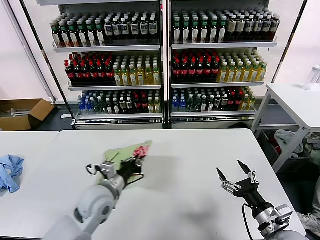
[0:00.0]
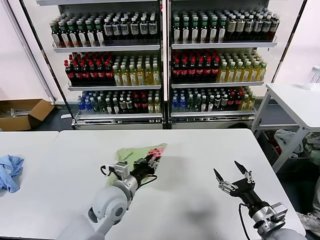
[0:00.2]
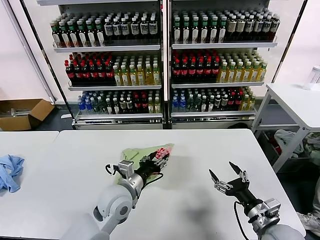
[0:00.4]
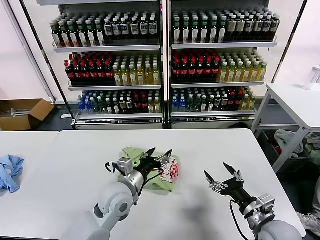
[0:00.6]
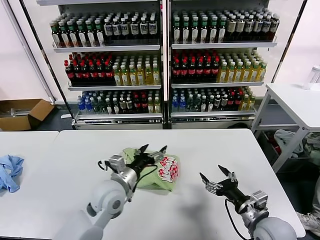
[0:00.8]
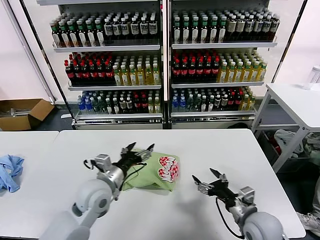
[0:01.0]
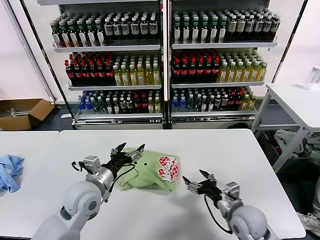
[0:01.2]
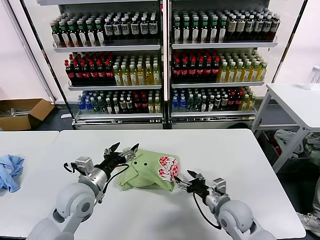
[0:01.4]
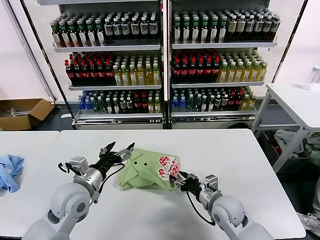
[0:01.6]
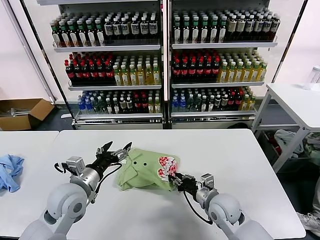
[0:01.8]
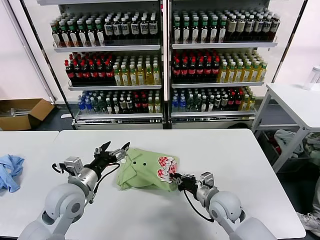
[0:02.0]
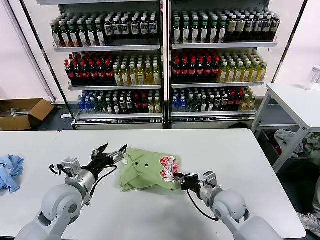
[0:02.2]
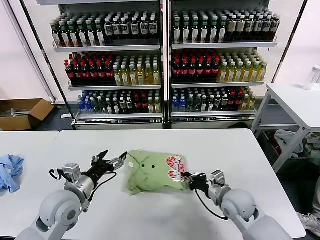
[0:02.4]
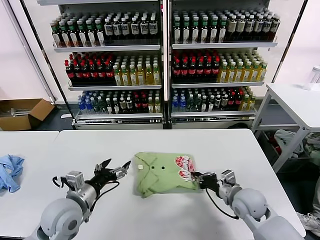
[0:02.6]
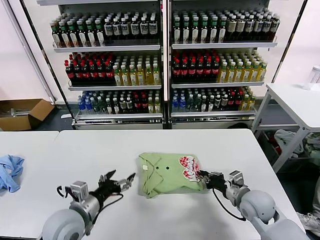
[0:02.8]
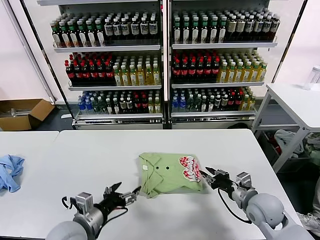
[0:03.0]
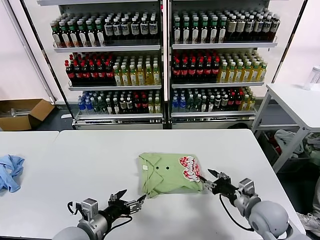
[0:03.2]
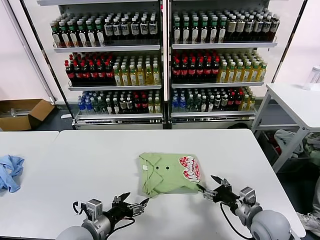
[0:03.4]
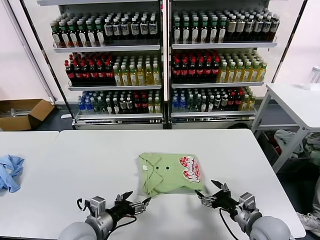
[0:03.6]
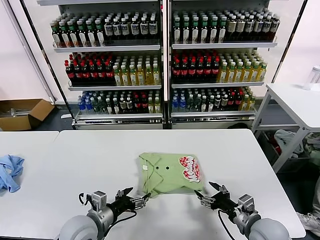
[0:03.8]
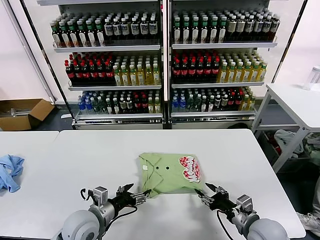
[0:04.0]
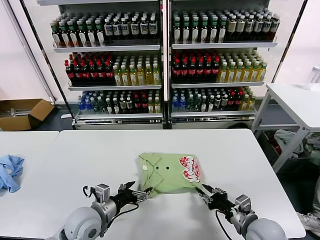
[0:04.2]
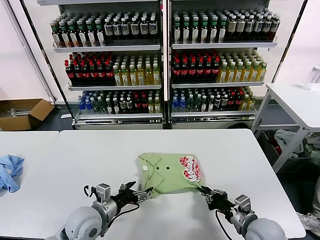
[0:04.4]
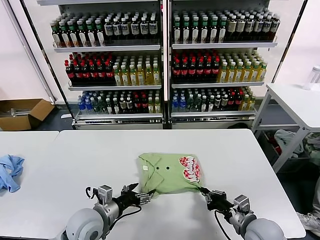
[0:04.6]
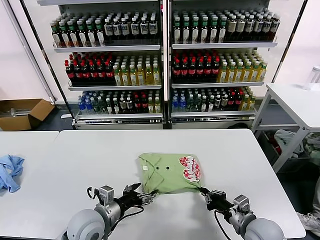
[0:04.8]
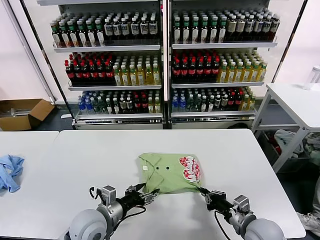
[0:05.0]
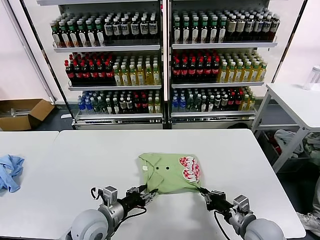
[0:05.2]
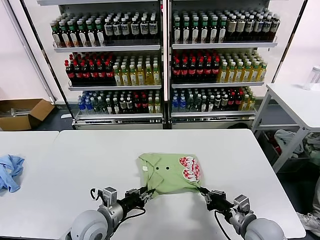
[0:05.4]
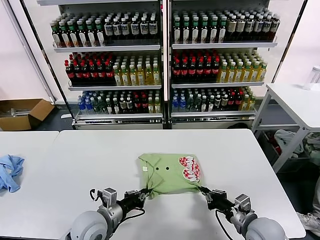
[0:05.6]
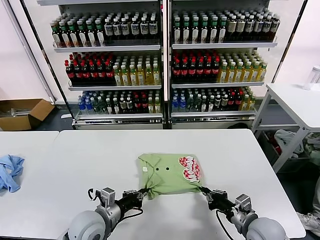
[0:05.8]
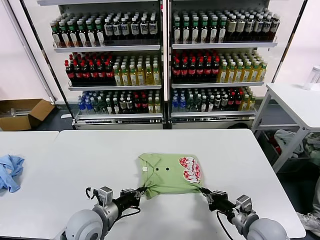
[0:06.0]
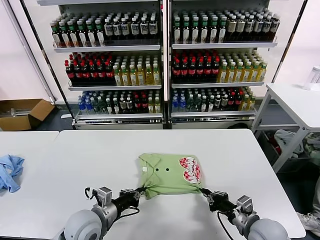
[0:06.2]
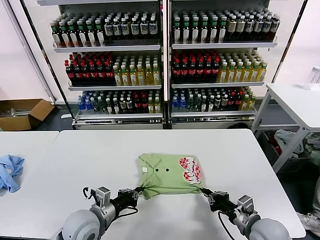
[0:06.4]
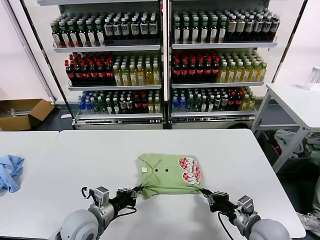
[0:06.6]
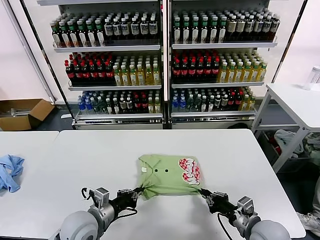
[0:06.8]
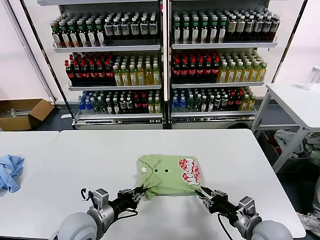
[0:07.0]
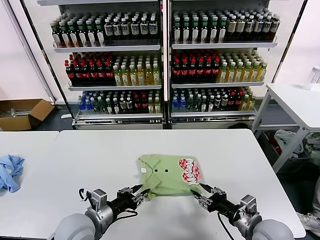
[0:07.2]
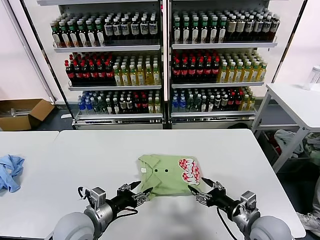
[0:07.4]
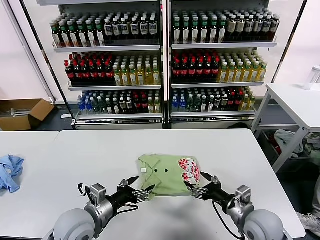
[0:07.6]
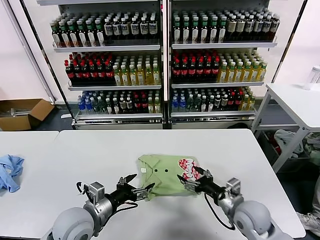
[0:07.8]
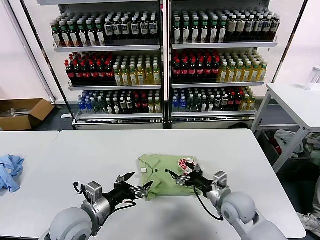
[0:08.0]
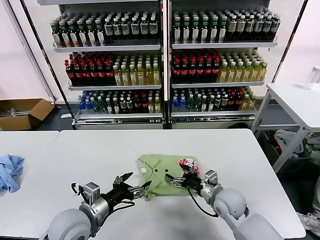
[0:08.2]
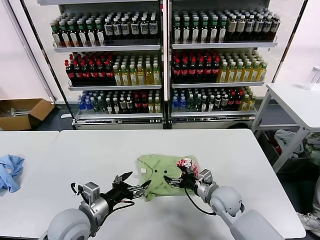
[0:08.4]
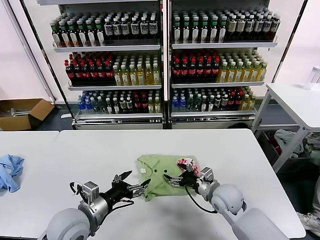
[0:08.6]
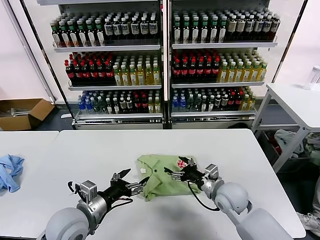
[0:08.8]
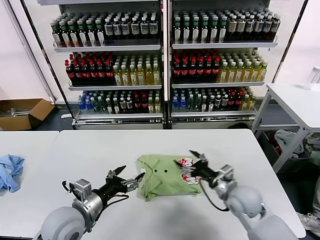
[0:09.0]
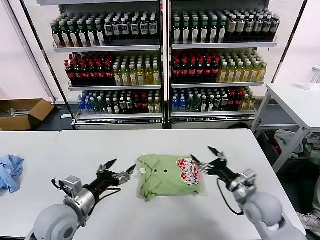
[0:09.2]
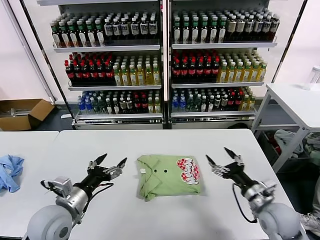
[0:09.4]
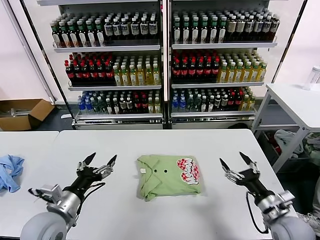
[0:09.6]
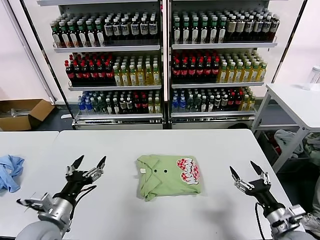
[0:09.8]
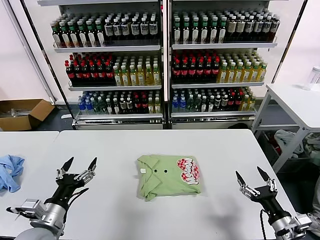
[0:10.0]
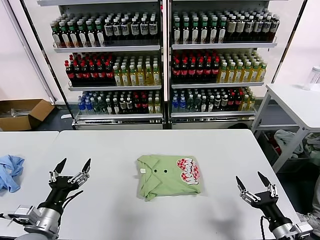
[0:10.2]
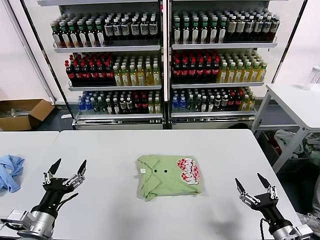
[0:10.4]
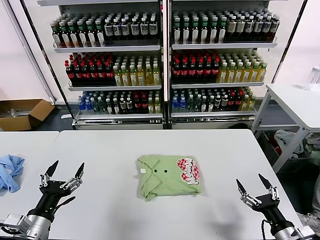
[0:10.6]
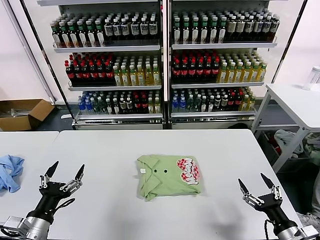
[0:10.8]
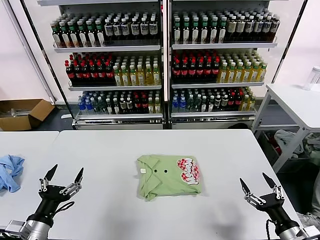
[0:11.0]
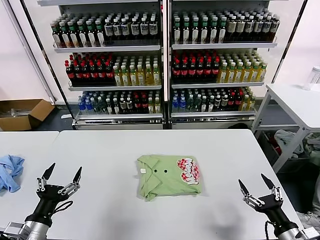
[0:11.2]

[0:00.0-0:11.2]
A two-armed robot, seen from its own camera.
Task of the whole recording: fold and organize the clothes.
Step, 0:00.6 to 0:08.6: Drag the clothes to the center of the table.
0:00.0 to 0:01.6: The right gripper is displaced to the left and forward by about 15 cm. Meanwhile the left gripper moves to the left, roughly 5 cm, and opens.
0:01.6 to 0:03.2: The left gripper is displaced backward by about 10 cm; the right gripper is displaced to the right by approximately 10 cm, and closes and opens again.
0:03.2 to 0:04.8: The right gripper shifts by roughly 5 cm, and closes up. Meanwhile the left gripper goes roughly 5 cm forward.
0:04.8 to 0:06.4: The left gripper closes.
0:06.4 to 0:08.0: The left gripper moves upward, approximately 5 cm, and opens its fingers. Meanwhile the right gripper travels forward and to the left by approximately 10 cm, and opens its fingers.
0:08.0 to 0:09.6: The left gripper shifts approximately 5 cm to the left; the right gripper shifts some 15 cm to the right and backward.
0:09.6 to 0:11.2: The left gripper goes roughly 10 cm backward and to the left. Meanwhile the right gripper travels backward by about 10 cm.

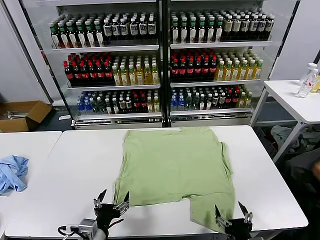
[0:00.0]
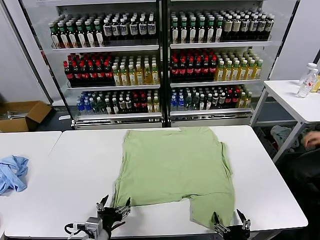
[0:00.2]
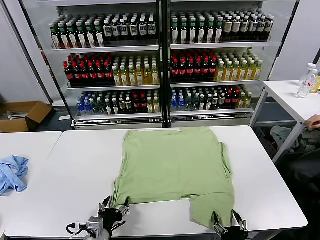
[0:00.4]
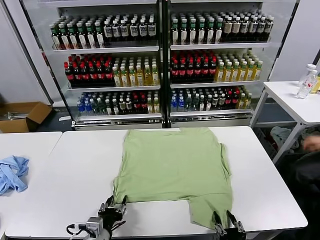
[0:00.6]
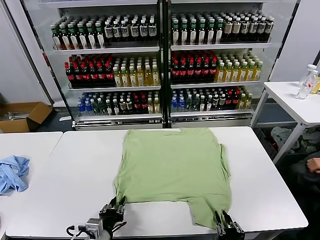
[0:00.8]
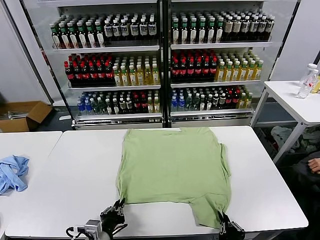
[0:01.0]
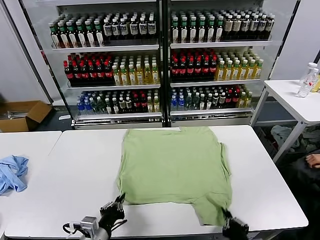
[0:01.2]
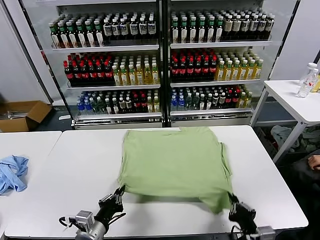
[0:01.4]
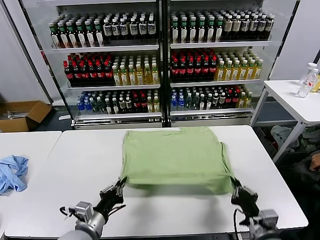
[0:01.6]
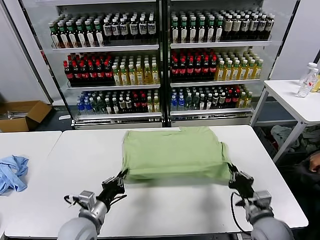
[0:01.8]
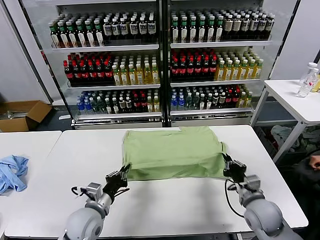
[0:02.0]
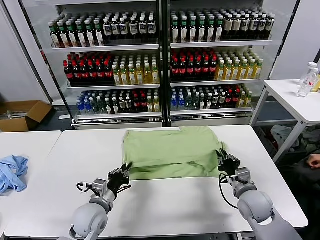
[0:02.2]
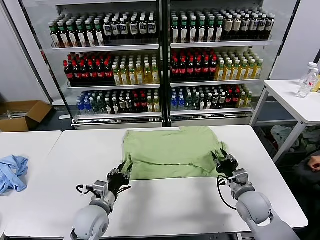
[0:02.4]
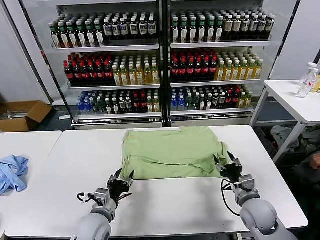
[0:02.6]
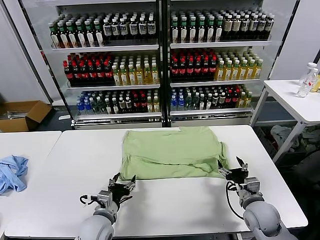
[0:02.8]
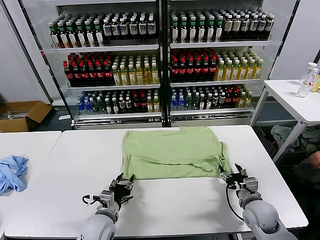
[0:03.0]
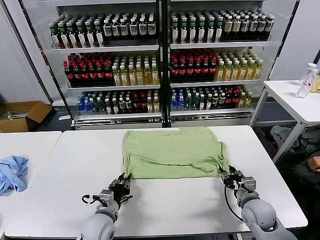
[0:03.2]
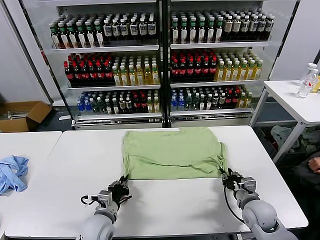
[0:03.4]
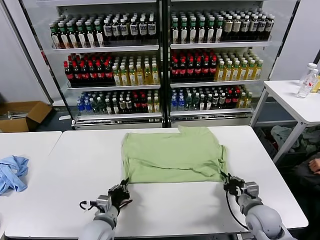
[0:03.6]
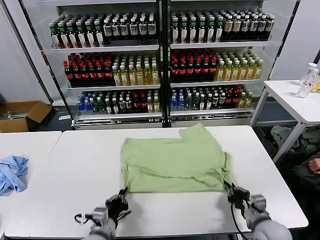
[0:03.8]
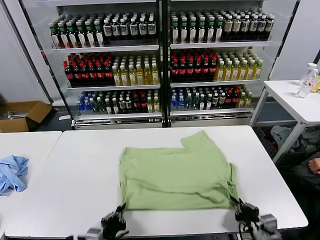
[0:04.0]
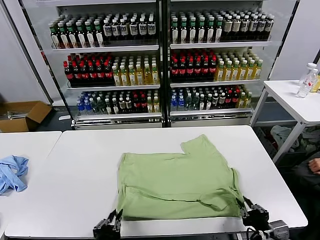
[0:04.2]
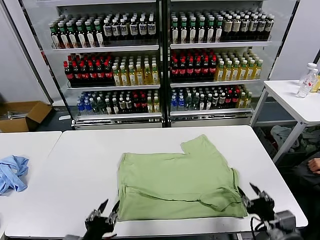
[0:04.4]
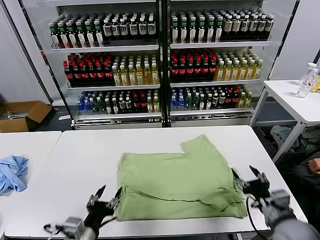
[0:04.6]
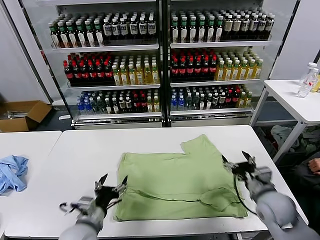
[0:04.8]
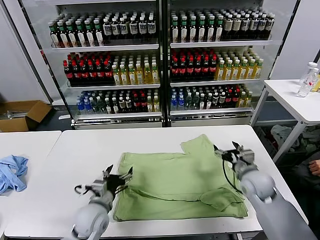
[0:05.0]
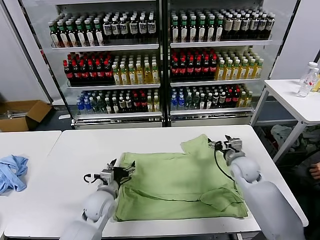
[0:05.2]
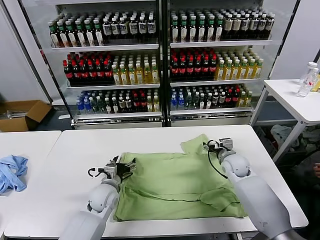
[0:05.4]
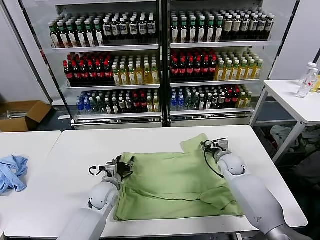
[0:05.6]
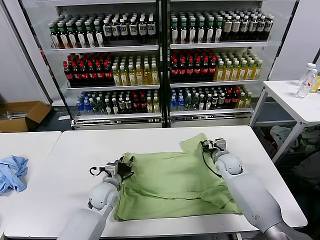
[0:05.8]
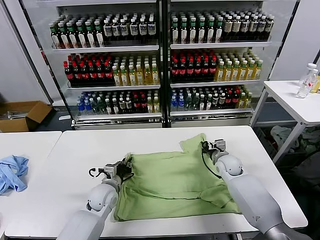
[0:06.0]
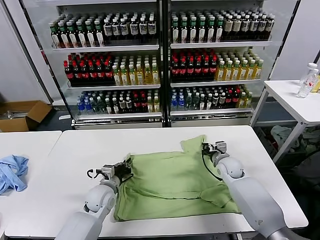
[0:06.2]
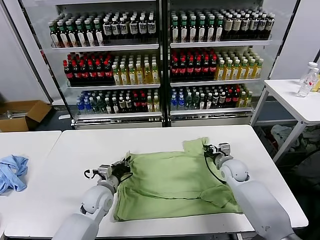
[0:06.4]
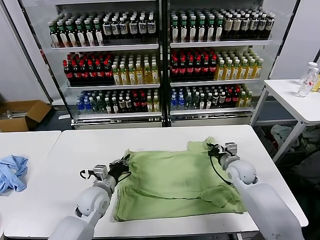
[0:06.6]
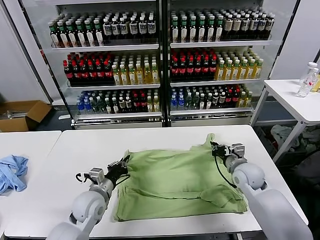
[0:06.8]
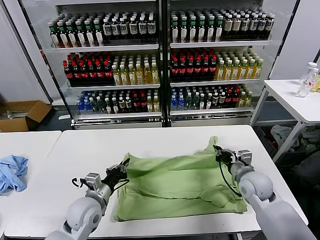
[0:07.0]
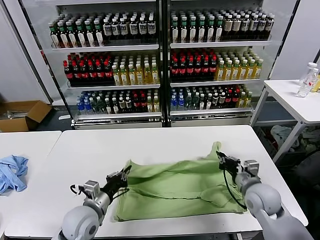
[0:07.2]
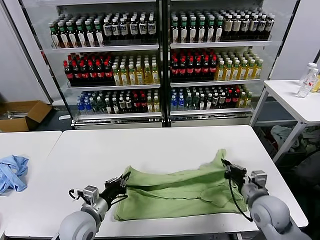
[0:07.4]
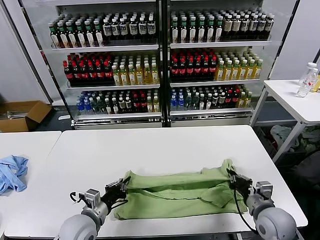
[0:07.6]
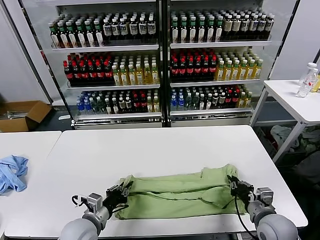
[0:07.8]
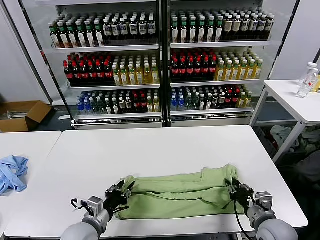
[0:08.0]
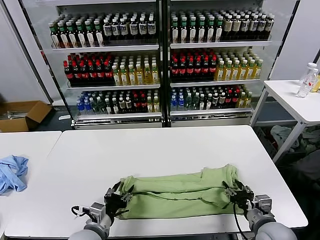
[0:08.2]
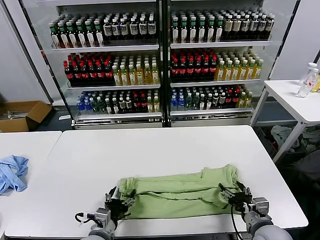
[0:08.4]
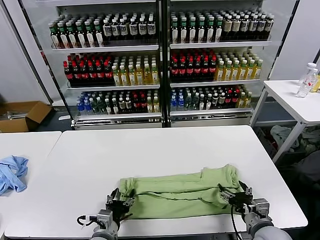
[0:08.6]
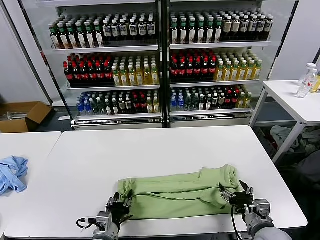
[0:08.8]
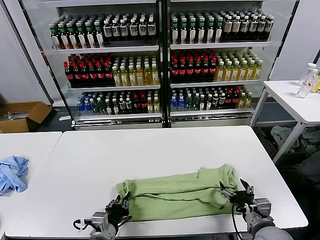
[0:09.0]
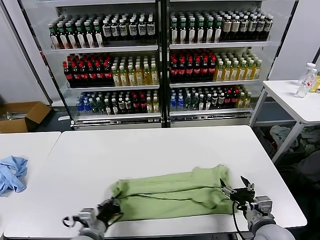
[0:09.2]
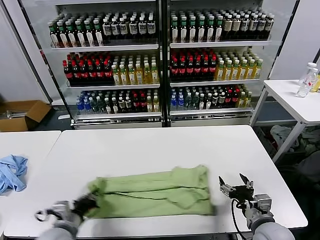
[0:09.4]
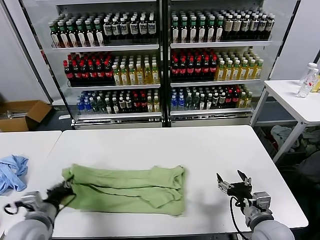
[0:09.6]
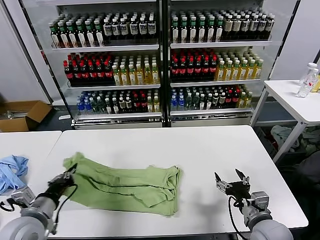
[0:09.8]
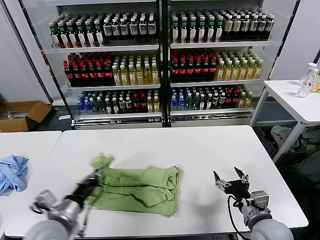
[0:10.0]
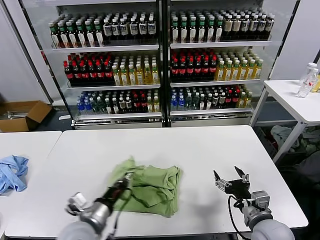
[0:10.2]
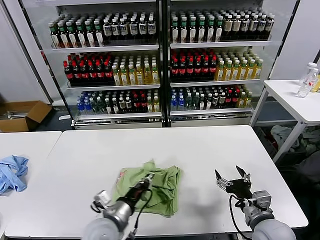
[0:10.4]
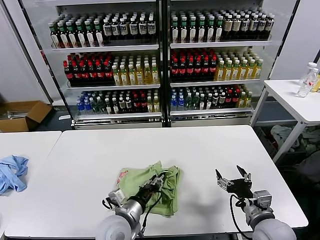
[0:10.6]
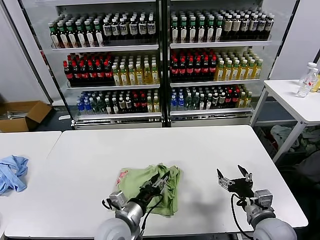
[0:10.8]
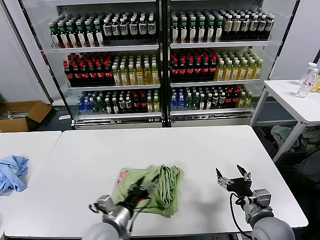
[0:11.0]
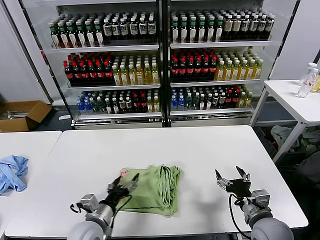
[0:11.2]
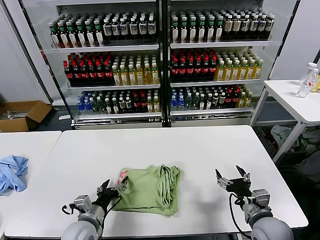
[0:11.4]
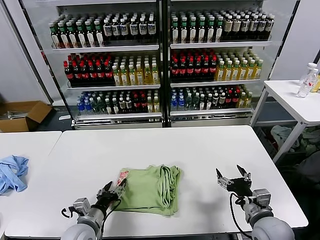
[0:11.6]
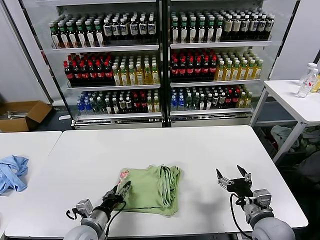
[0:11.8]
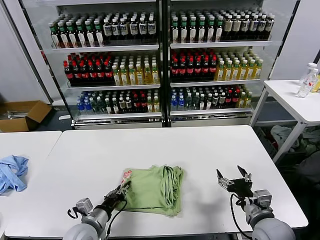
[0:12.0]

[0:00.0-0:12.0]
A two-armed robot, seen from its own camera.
Task of the whole recording: fold and organize the clothes.
Step, 0:00.0 to 0:01.0: use both grippers simultaneously to clamp the lower edge of the clothing fabric.
Step, 0:01.2 to 0:02.4: use both grippers to drag the lower edge of the fabric forward and fold it over the upper edge.
Step, 0:02.6 to 0:04.2: Drag the clothes downward with both gripper.
Step, 0:04.4 to 0:06.2: use both grippers simultaneously to clamp the upper edge of the clothing fabric.
Step, 0:06.4 to 0:08.2: use both grippers to drag the upper edge of the fabric backward and fold it over the lower edge.
Step, 0:08.4 to 0:09.2: use the left gripper to clamp the left edge of the fabric.
Step, 0:09.4 to 0:10.8: use the left gripper to drag the left edge of the fabric to the left and folds it over the right edge.
0:01.6 to 0:03.0: The left gripper is displaced downward and forward by about 10 cm, and opens. The right gripper is displaced forward and downward by approximately 10 cm, and opens its fingers.
0:03.0 to 0:04.4: The grippers both shift backward and upward by about 15 cm. The left gripper closes and opens again; the right gripper closes, then opens again.
0:04.4 to 0:06.0: The grippers both shift forward by some 30 cm. The right gripper closes up. Meanwhile the left gripper opens, then closes again.
0:06.0 to 0:07.6: The left gripper moves backward, some 15 cm, while the right gripper shifts roughly 25 cm backward.
0:07.6 to 0:09.0: The right gripper opens its fingers. Meanwhile the left gripper shifts approximately 5 cm backward, and opens and closes again.
0:09.0 to 0:10.4: The left gripper heads upward, covering about 5 cm, and travels to the left and back again, roughly 15 cm each way.
0:10.4 to 0:12.0: The left gripper shifts roughly 10 cm to the left and downward, and opens, then closes once more.
